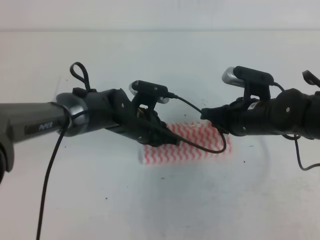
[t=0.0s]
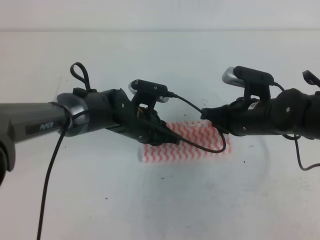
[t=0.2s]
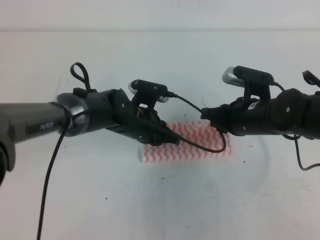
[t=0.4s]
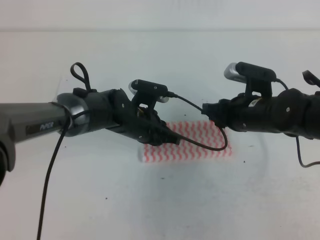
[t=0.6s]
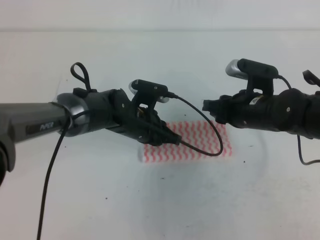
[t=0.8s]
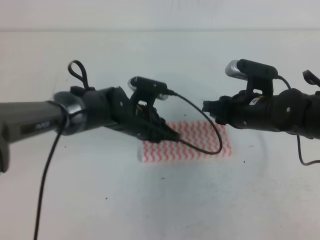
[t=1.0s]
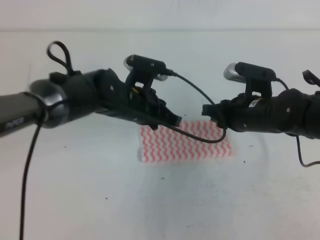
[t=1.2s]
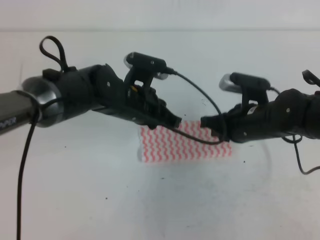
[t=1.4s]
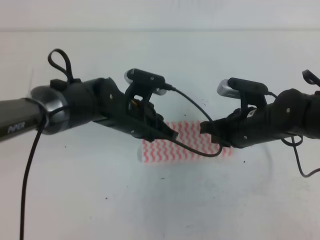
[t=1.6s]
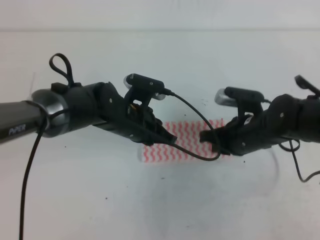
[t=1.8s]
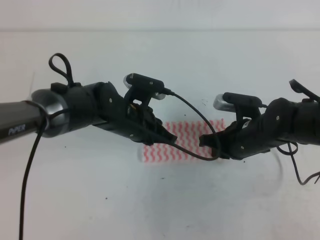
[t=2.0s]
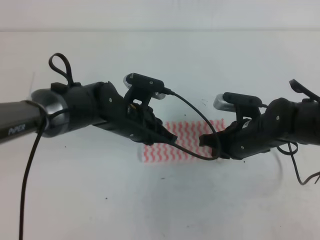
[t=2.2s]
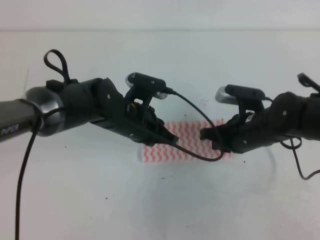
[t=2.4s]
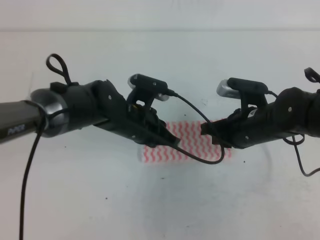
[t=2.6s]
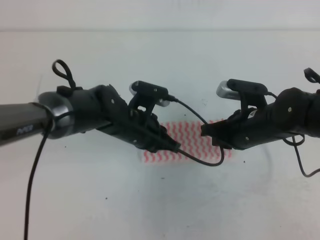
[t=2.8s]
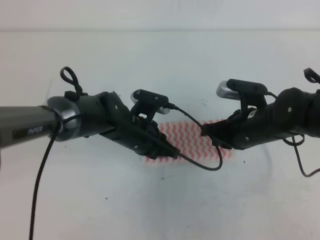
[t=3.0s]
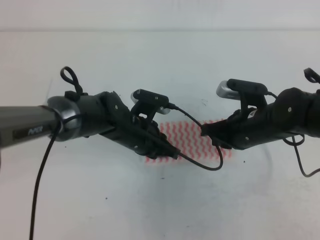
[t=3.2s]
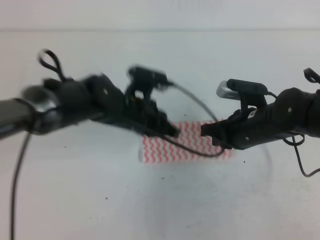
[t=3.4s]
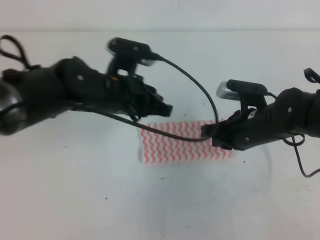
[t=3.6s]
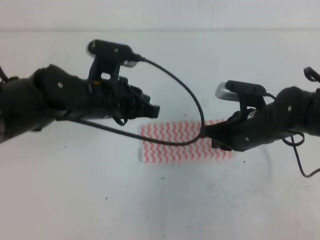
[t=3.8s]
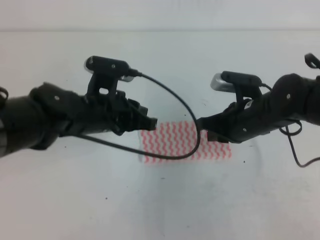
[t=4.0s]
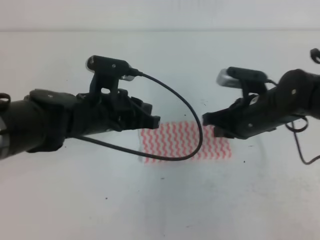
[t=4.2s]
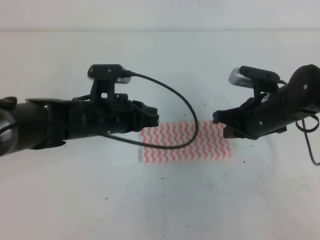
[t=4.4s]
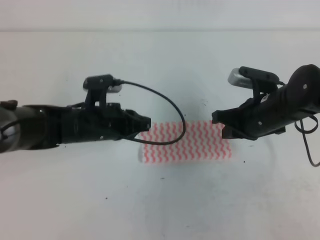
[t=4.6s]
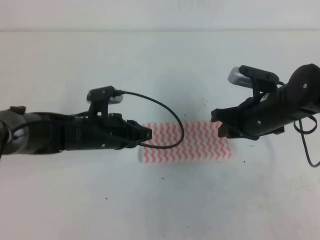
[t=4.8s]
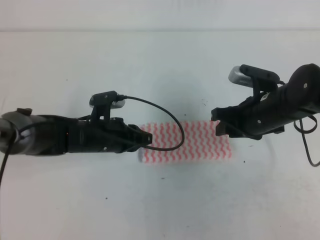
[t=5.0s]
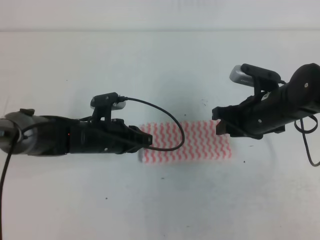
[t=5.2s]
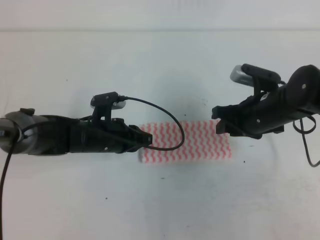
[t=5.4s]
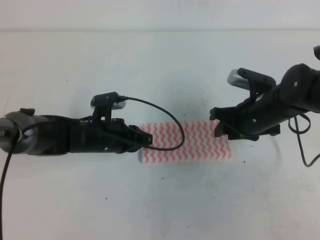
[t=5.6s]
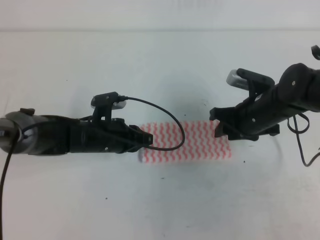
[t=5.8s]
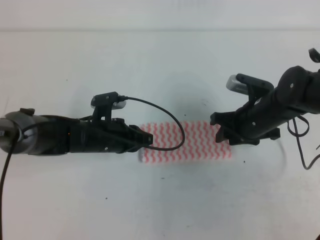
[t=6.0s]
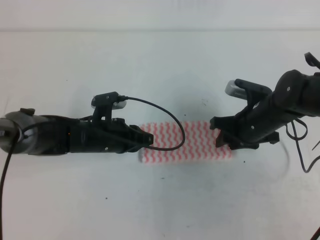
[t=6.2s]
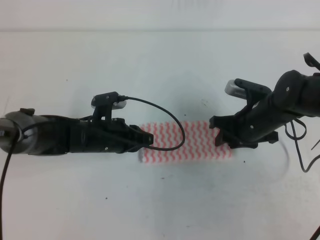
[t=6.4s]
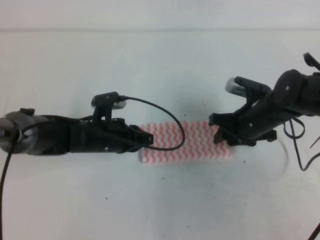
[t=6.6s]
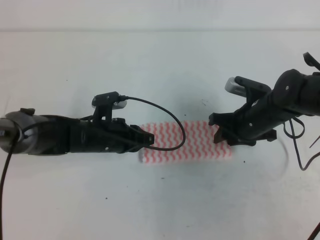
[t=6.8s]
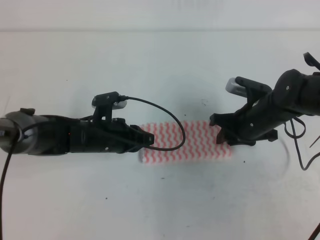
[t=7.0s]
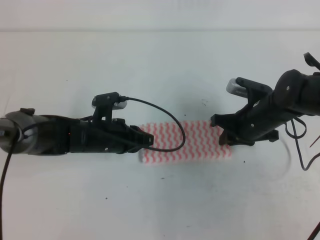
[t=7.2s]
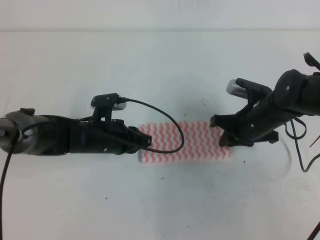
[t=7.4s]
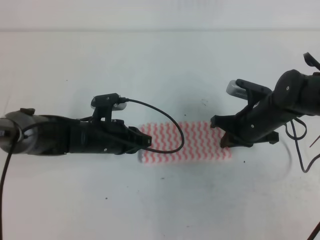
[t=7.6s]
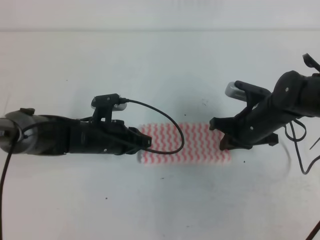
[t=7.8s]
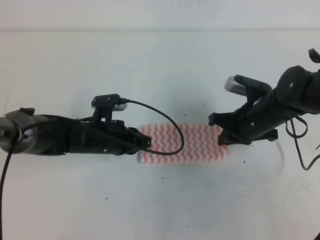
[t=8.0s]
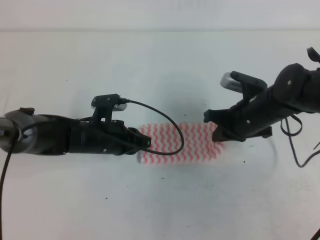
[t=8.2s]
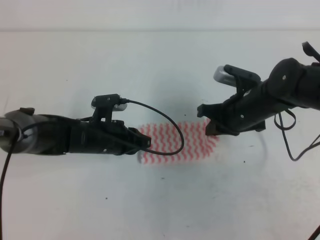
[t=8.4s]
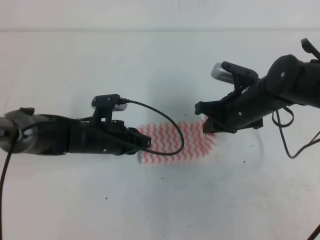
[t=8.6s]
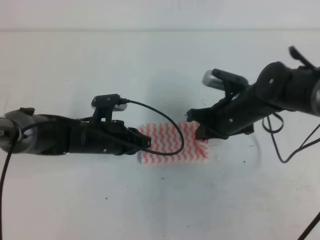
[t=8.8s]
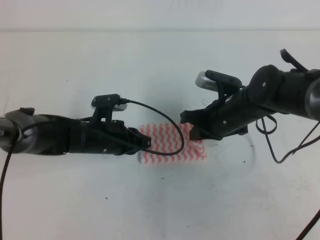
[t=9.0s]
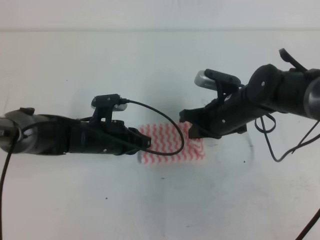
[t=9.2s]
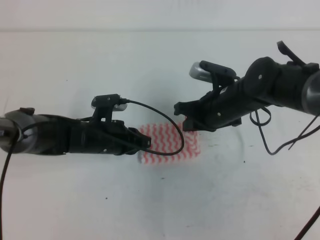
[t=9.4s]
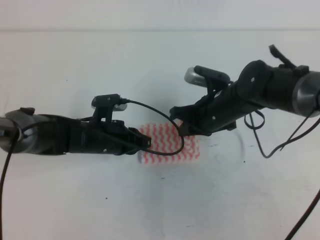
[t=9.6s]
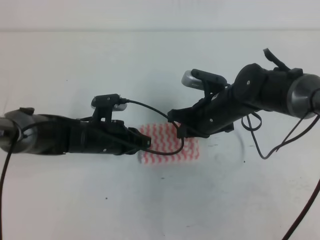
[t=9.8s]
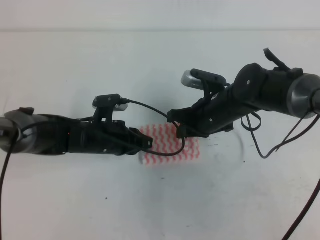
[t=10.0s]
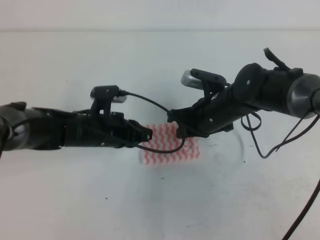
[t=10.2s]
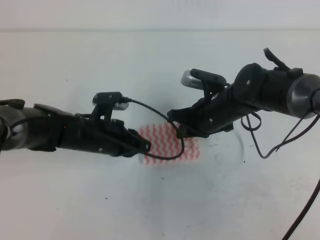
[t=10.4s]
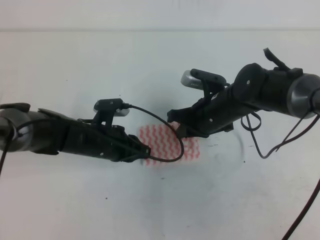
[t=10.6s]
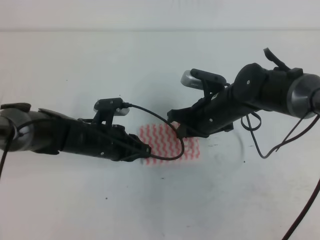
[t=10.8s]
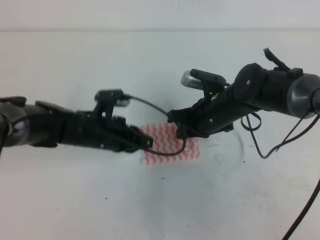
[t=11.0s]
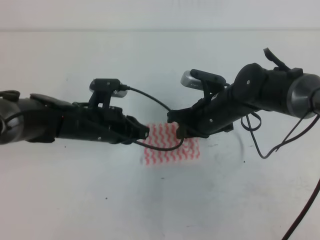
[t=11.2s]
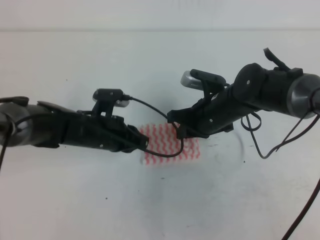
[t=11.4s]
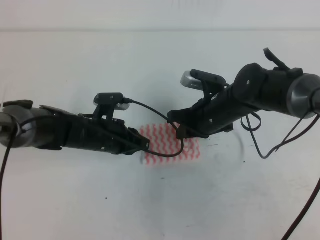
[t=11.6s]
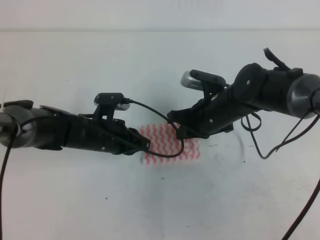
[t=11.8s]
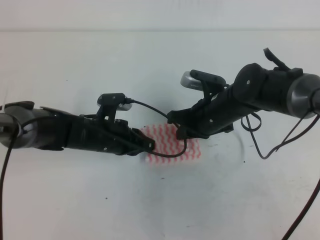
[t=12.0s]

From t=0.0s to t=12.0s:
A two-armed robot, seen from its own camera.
From t=0.0s to t=1.6s: The right gripper opens, then closes again.
From t=1.6s to t=3.0s: The grippers make only small movements.
From t=3.0s to t=4.4s: The left gripper shifts by about 5 cm.
From t=4.4s to t=6.0s: The left gripper moves downward, approximately 10 cm, while the right gripper opens up.
From t=6.0s to t=7.6s: The right gripper closes.
From t=7.6s to t=9.0s: The right gripper moves about 5 cm.
From t=9.0s to t=12.0s: The grippers move only a little.

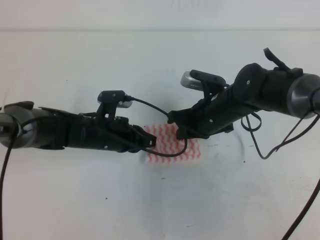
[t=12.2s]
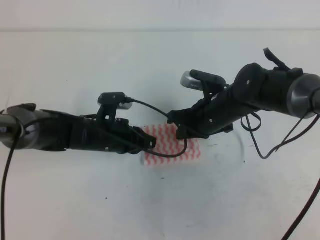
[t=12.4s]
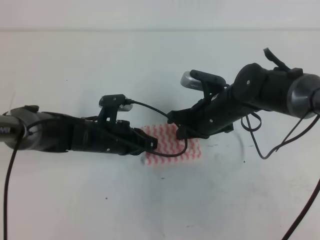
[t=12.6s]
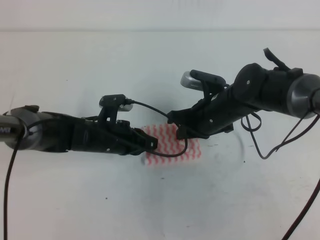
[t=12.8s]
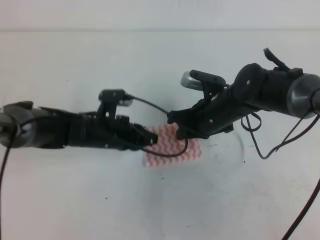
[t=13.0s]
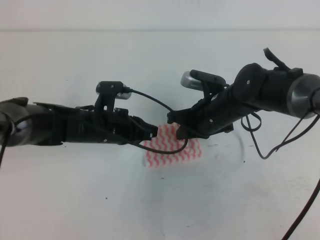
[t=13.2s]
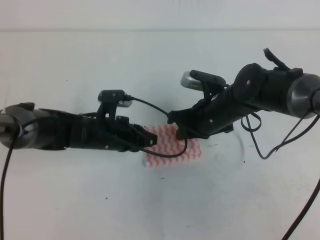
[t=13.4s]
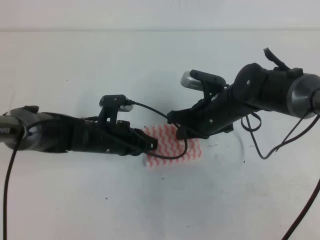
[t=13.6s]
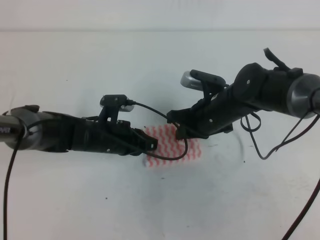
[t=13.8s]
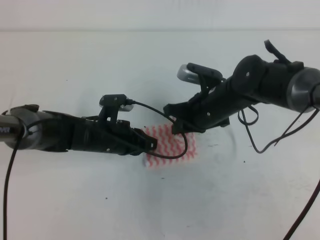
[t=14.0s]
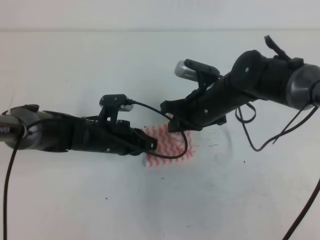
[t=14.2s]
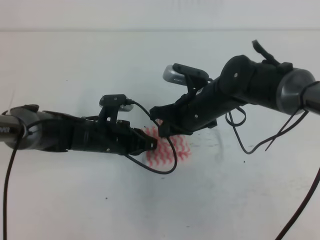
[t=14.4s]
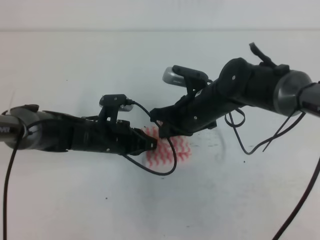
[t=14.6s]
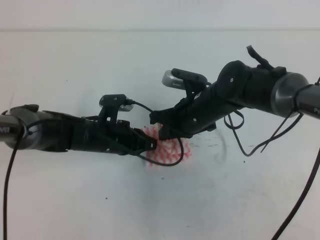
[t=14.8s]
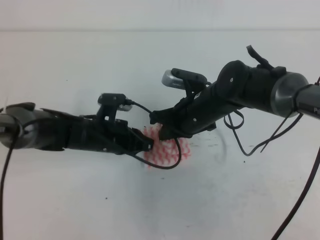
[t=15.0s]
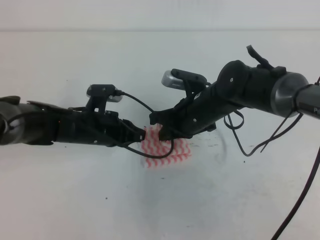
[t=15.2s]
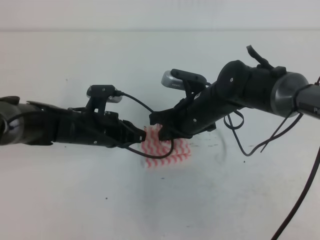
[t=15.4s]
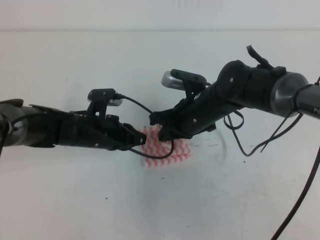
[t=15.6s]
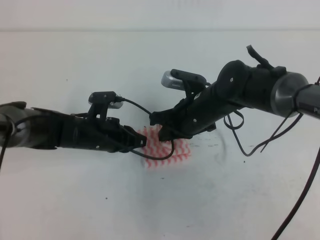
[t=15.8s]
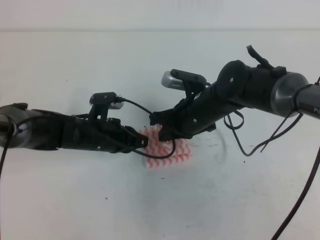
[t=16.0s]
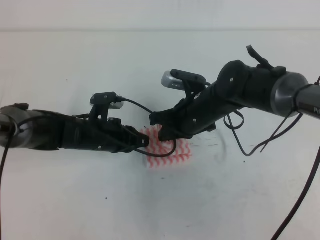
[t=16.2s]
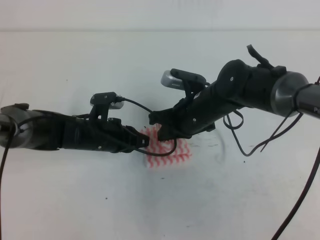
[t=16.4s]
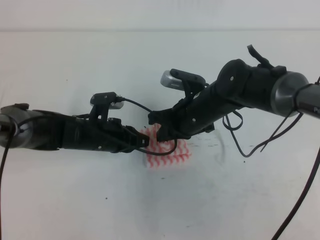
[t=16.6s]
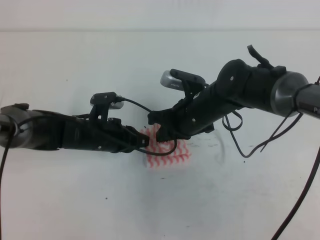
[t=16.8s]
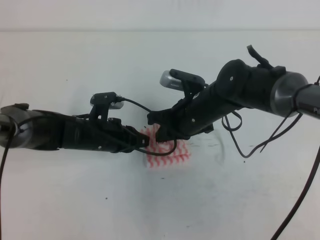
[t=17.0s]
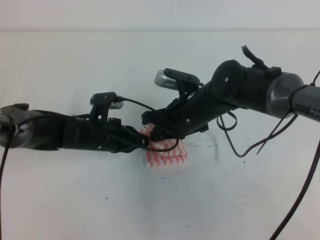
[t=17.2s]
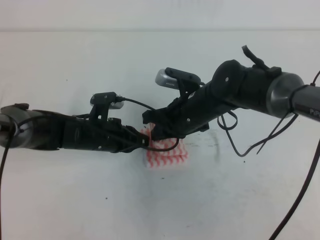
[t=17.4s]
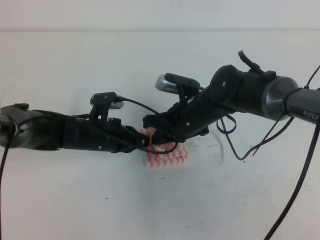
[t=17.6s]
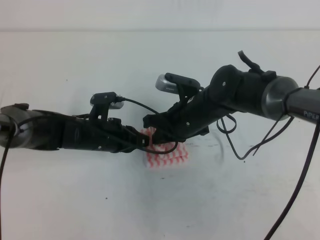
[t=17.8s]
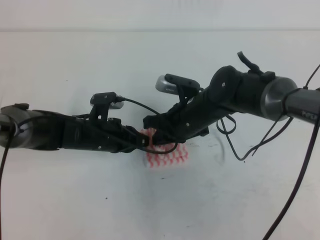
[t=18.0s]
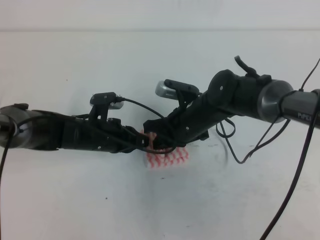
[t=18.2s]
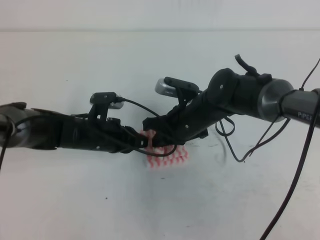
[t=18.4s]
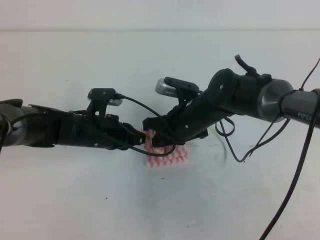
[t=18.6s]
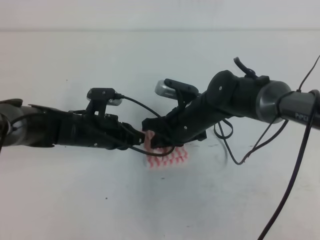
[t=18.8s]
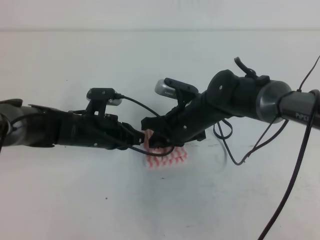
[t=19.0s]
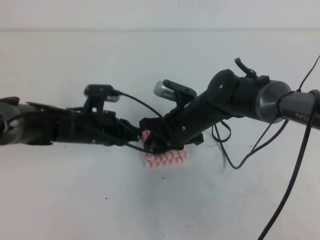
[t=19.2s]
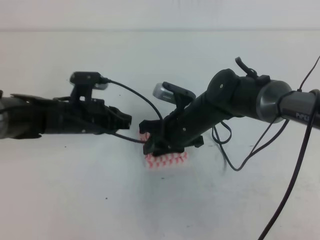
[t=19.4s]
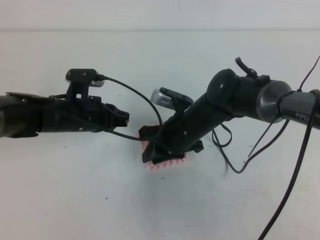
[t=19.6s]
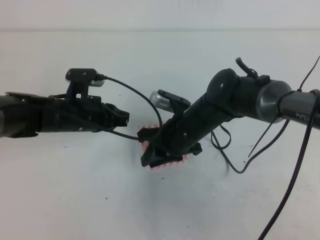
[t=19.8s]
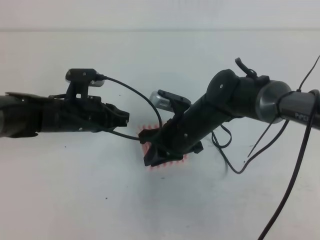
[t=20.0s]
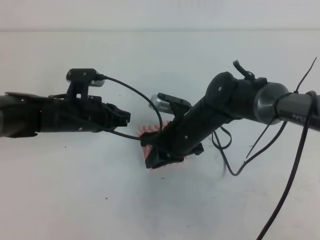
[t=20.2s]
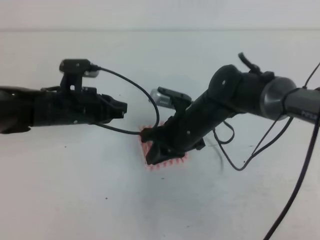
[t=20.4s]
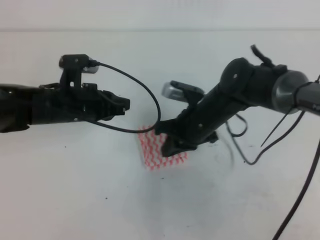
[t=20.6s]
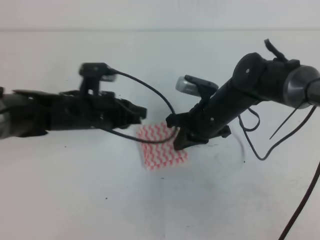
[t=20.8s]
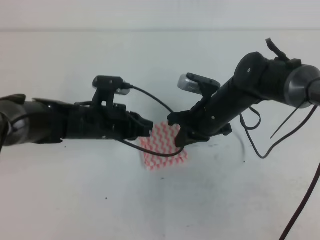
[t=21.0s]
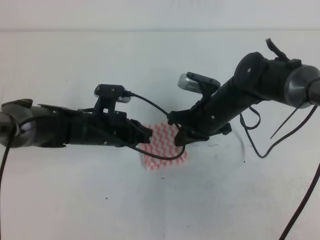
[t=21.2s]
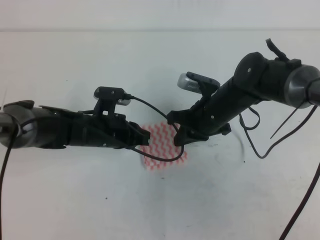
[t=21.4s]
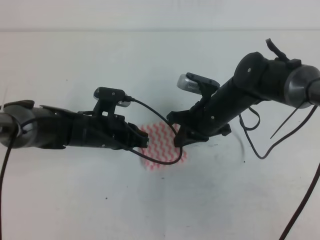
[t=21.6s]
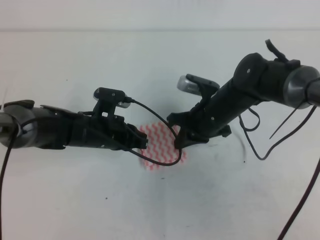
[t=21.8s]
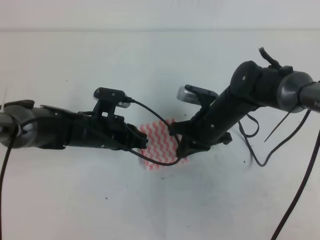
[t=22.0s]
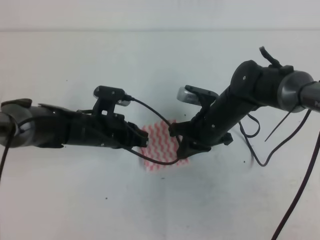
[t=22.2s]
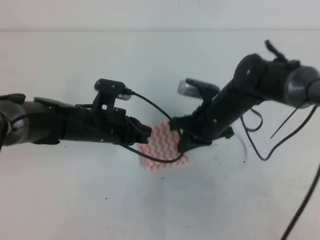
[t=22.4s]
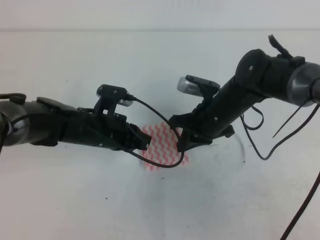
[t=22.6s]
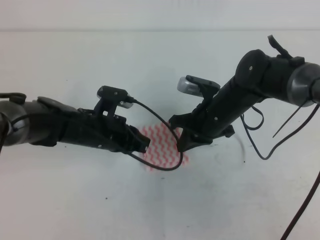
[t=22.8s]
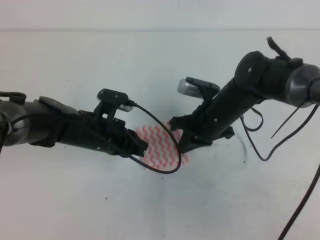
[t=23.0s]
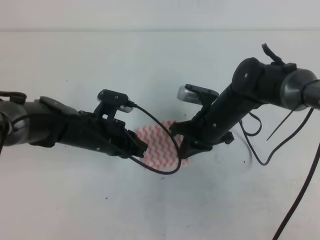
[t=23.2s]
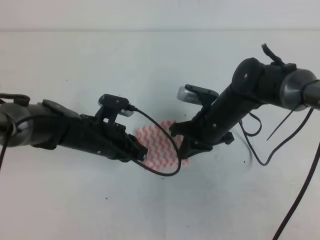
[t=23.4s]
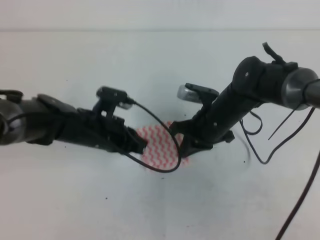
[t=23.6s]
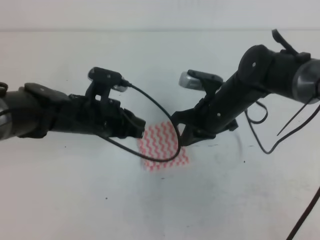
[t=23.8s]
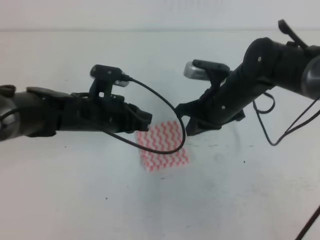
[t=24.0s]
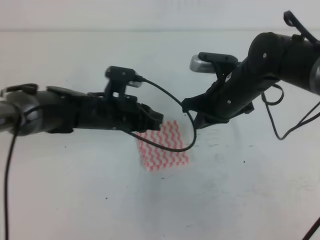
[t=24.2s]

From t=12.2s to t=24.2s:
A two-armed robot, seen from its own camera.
From t=12.2s to t=18.2s: The grippers make only small movements.
From t=18.2s to t=19.8s: The right gripper opens, while the left gripper ends up some 5 cm from where it was.
From t=19.8s to t=21.2s: The right gripper travels to the right by roughly 5 cm, and closes up.
From t=21.2s to t=22.6s: The grippers stay close to where they were, moving slightly.
